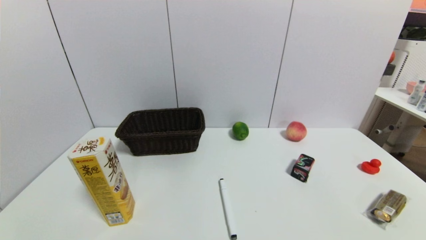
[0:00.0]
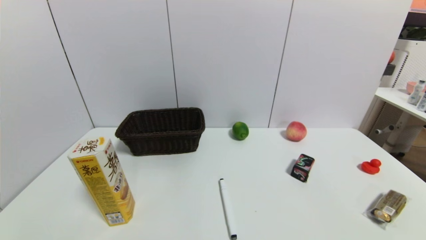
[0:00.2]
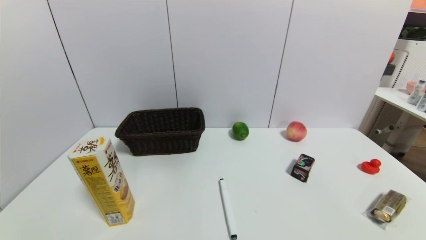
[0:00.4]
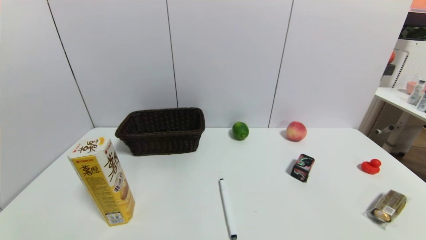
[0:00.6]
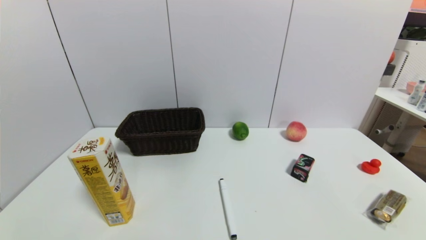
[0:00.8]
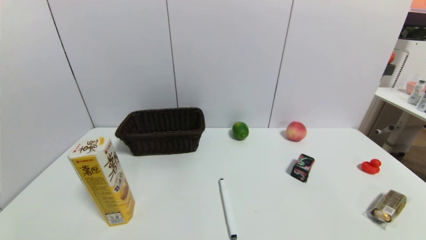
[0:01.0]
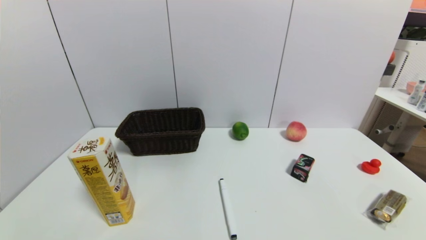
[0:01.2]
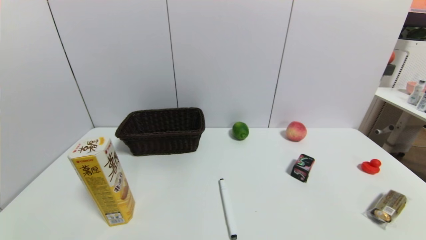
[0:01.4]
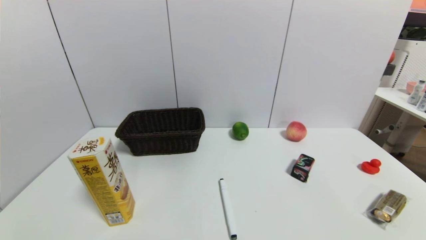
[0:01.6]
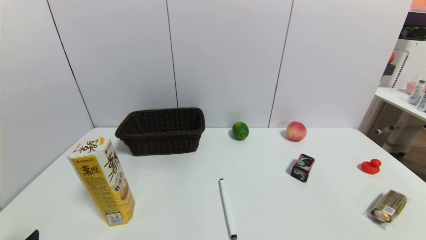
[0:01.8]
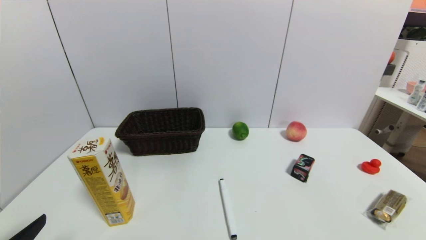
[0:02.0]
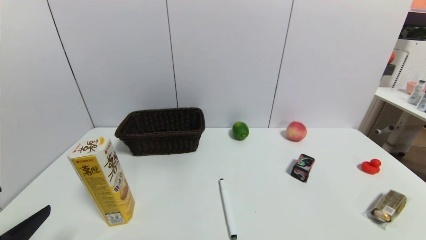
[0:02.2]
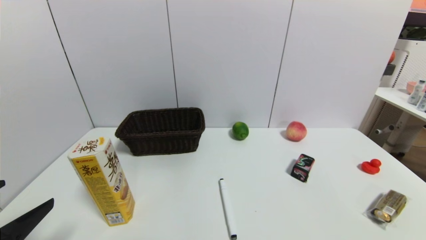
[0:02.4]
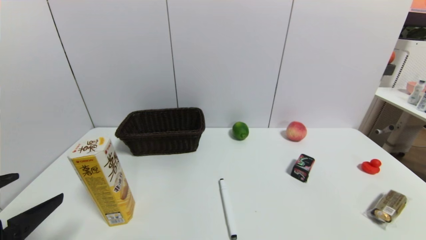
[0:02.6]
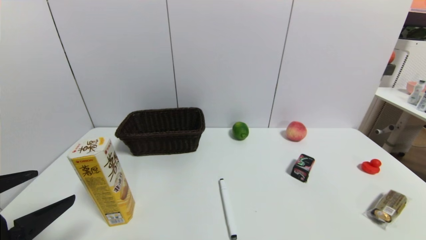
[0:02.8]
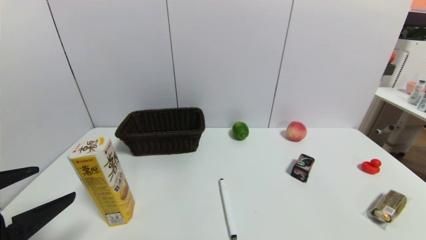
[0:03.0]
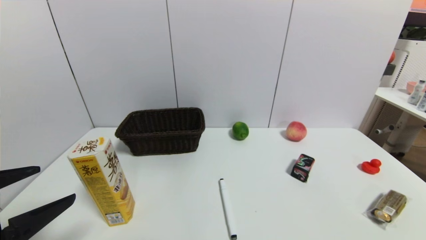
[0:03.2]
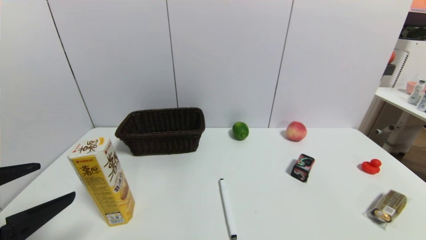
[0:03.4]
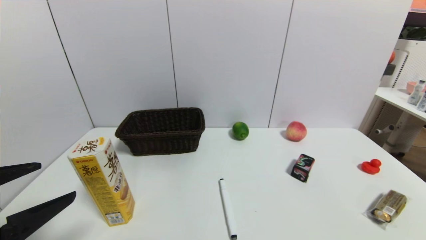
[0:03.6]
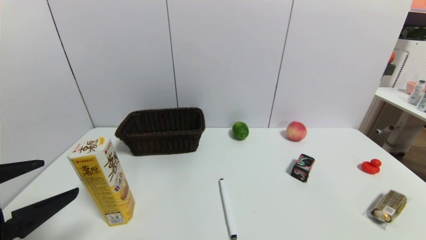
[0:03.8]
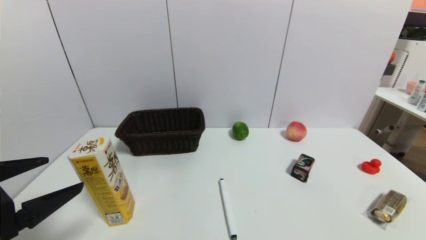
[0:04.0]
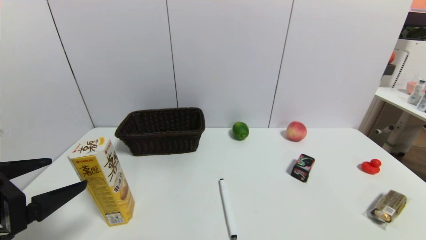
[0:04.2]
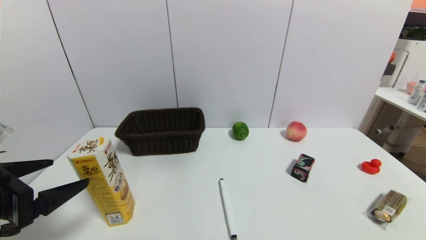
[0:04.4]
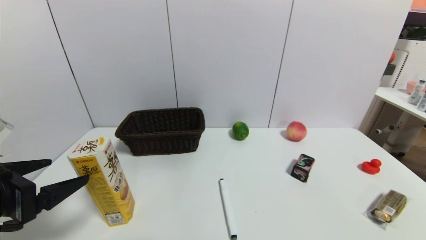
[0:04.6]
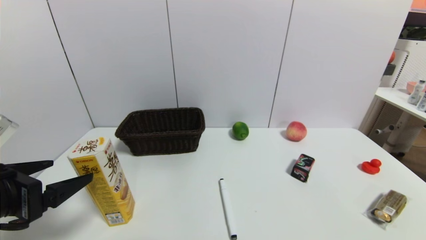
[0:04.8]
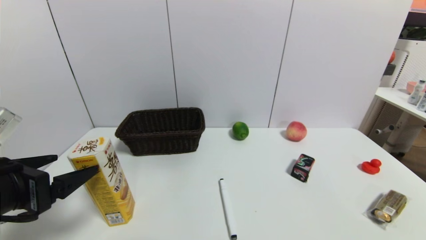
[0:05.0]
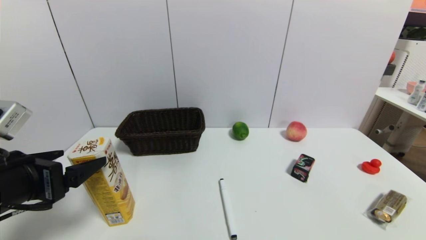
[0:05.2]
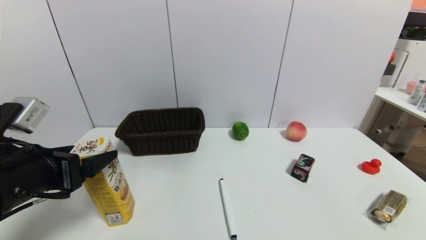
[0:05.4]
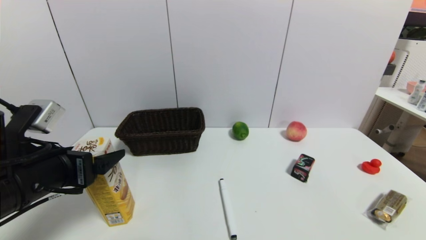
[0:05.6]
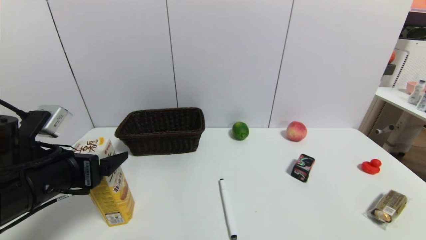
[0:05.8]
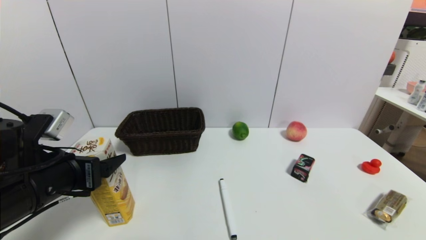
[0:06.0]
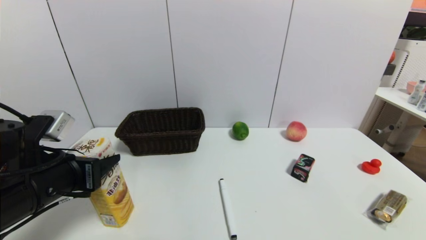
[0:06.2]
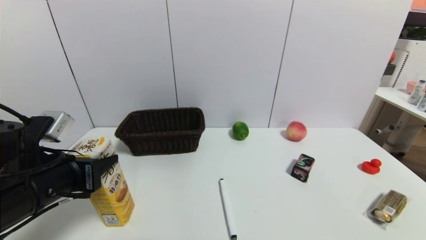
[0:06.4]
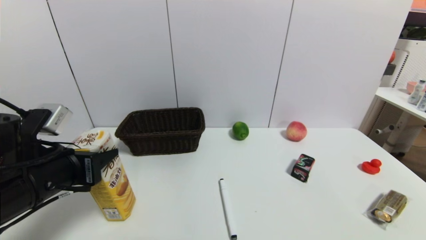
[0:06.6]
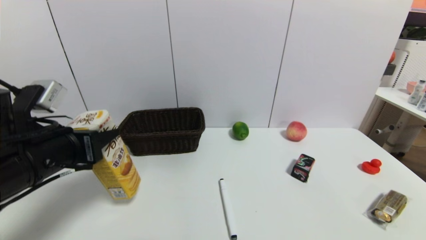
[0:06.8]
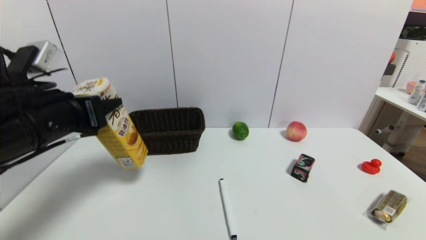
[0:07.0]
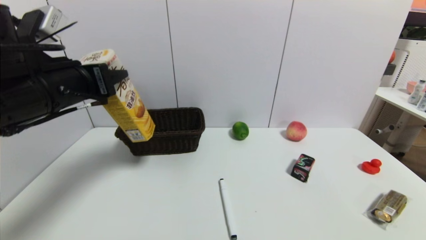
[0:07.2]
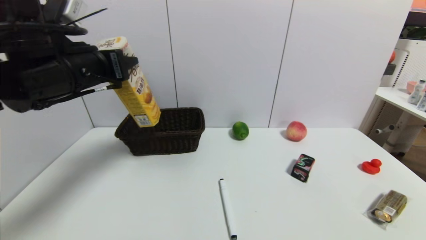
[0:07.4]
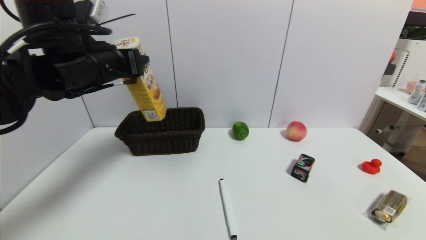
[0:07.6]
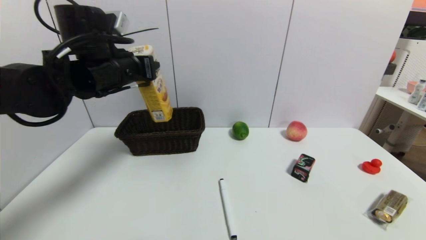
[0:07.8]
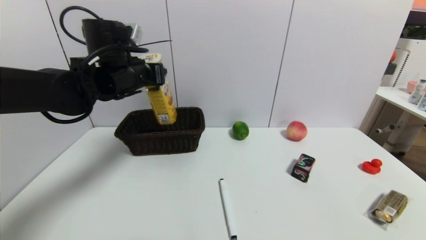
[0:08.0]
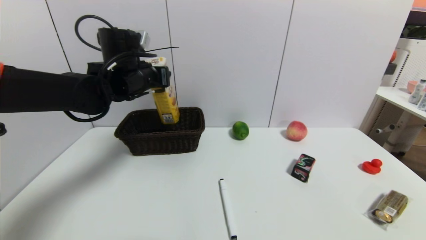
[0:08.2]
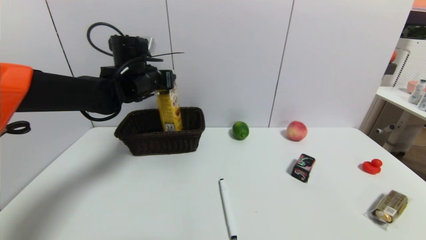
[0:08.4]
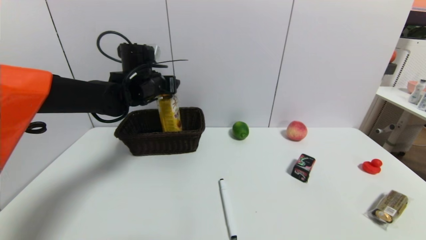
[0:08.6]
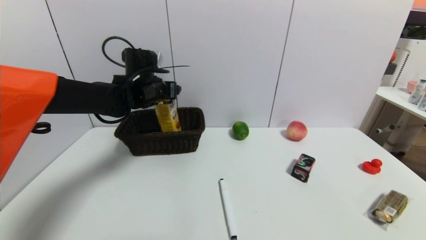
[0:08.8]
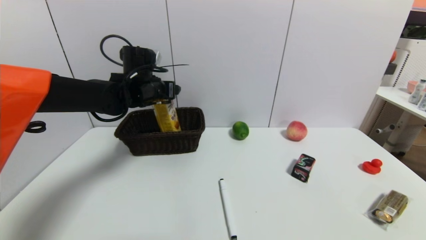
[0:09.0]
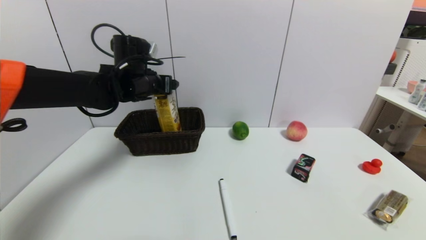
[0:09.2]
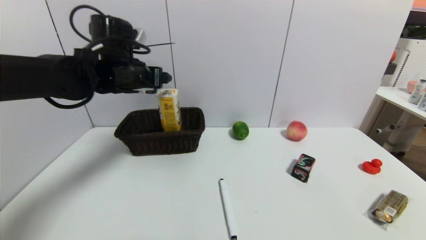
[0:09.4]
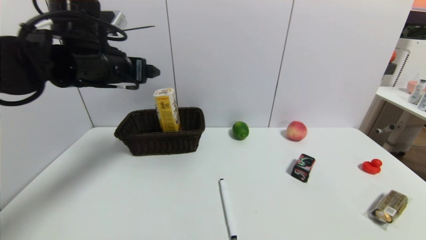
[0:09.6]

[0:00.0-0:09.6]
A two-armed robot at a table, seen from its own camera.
Task of the whole recording: use a gripper to pick the target object and place on the brown basket.
Step, 0:00.0 to 0:06.4: Grasp the potato chips with the left gripper.
Step, 0:06.6 to 0:09.4: Place the potato chips into the basket with the left gripper.
0:01.6 to 0:03.2: The left gripper shifts about 15 cm upward and forward.
0:03.2 to 0:04.8: The grippers make only small movements.
0:04.8 to 0:06.4: The left gripper moves forward, roughly 5 cm, and closes up.
0:06.4 to 0:08.0: The left gripper heads forward and upward, covering roughly 20 cm.
0:08.0 to 0:09.6: The left gripper is displaced backward by approximately 5 cm, and opens up.

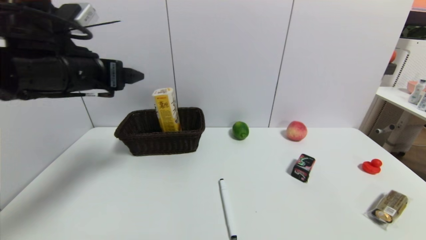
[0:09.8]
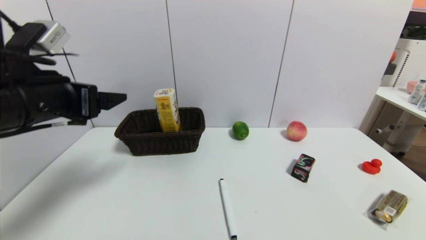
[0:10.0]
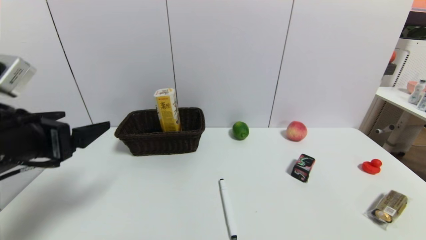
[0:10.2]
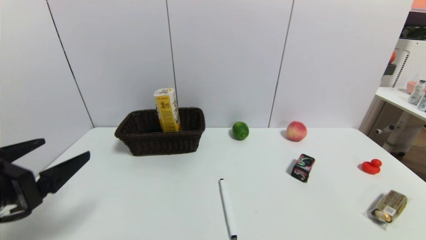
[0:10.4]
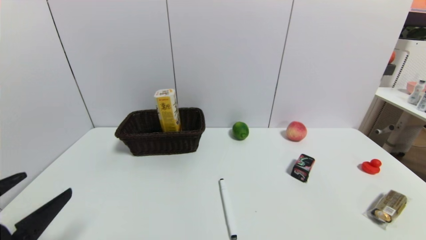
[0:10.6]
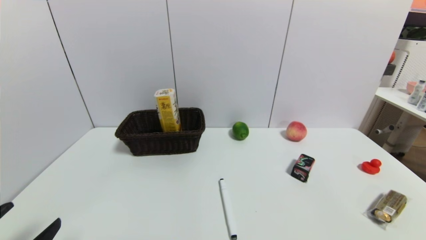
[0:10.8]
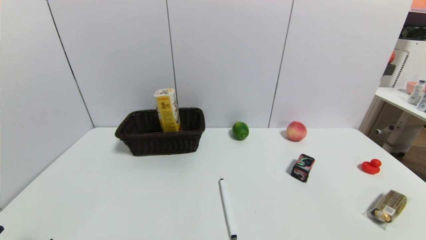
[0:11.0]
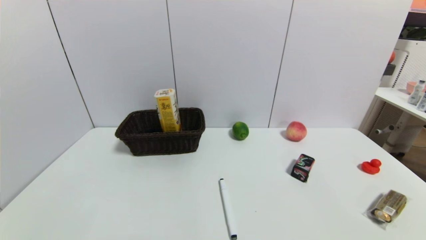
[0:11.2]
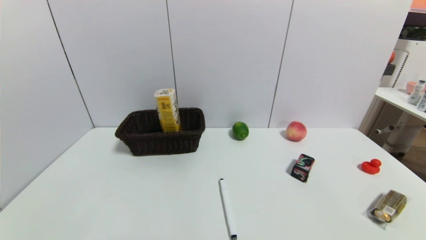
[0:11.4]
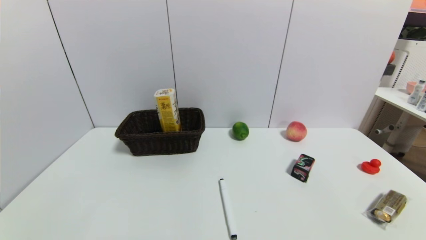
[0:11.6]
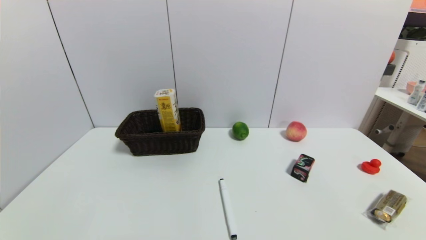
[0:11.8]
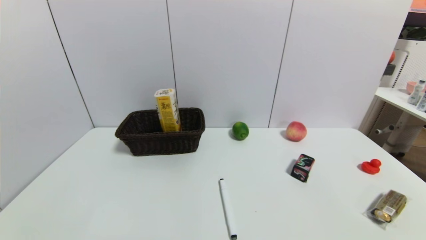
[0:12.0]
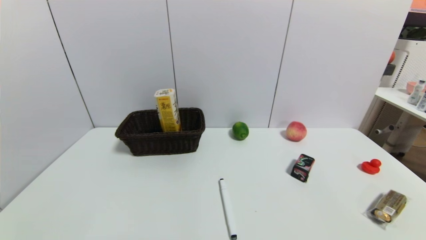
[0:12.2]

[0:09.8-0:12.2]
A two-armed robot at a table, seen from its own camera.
Task of the whole recording: use a gripper to pick the target object and place on the brown basket.
0:09.8 to 0:11.0: The left gripper heads backward and downward, covering some 30 cm.

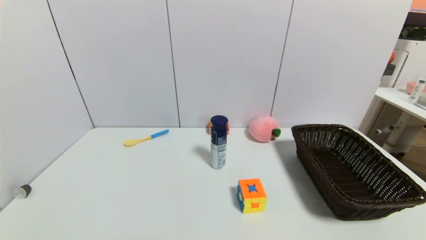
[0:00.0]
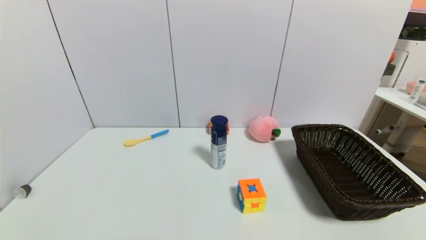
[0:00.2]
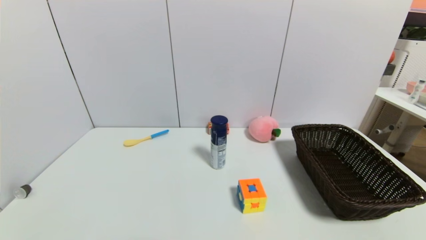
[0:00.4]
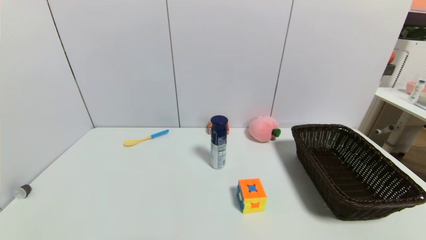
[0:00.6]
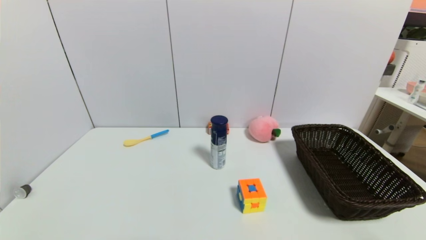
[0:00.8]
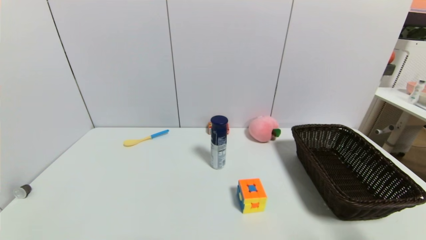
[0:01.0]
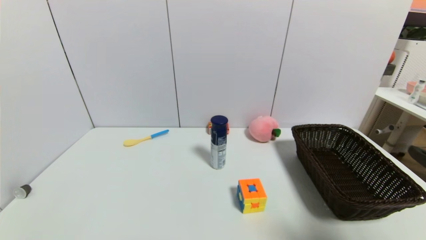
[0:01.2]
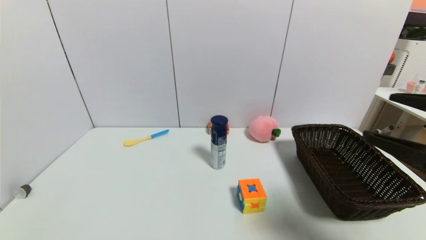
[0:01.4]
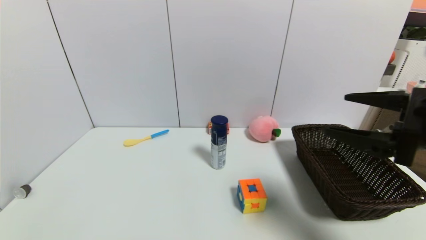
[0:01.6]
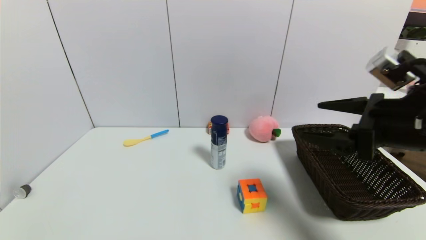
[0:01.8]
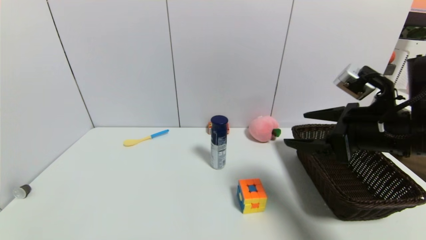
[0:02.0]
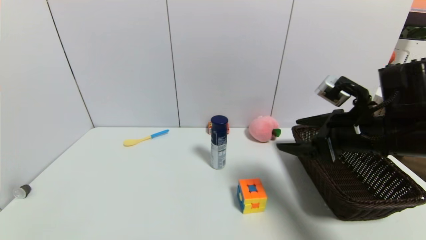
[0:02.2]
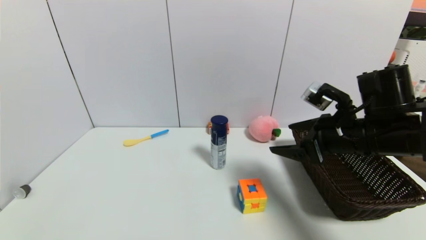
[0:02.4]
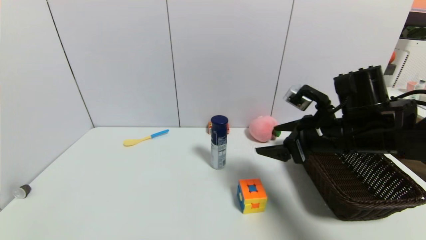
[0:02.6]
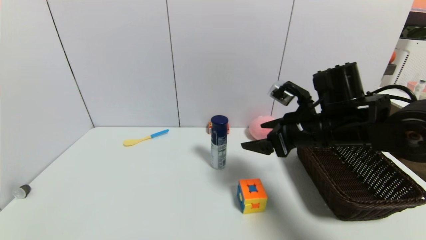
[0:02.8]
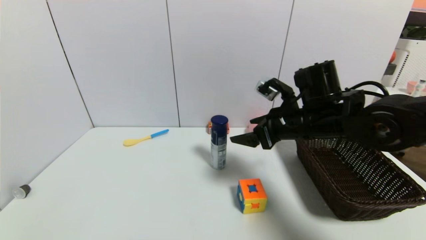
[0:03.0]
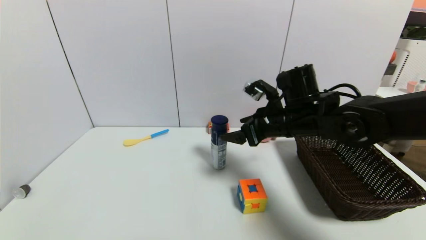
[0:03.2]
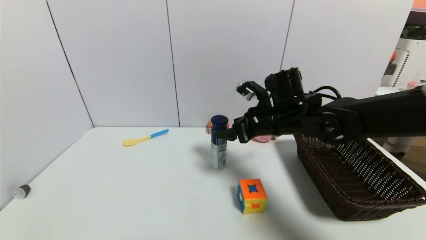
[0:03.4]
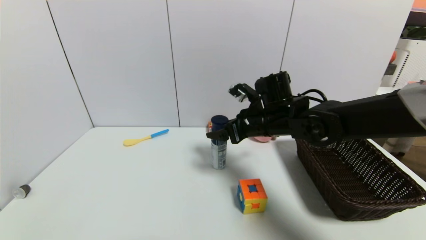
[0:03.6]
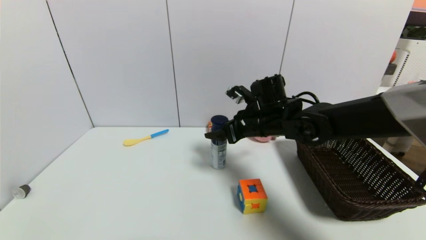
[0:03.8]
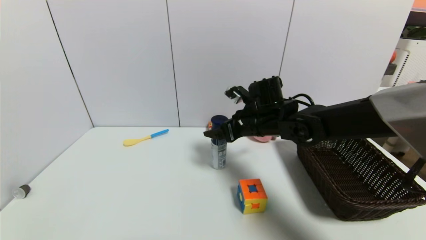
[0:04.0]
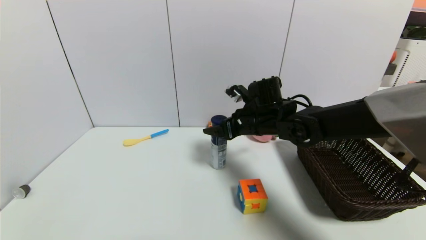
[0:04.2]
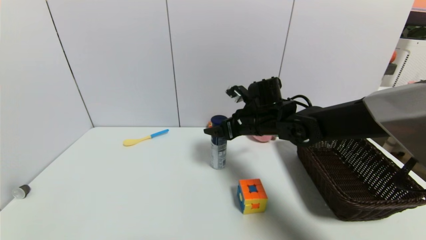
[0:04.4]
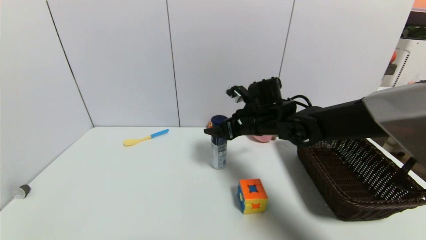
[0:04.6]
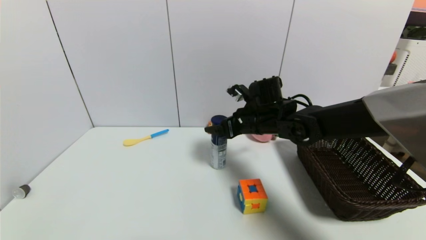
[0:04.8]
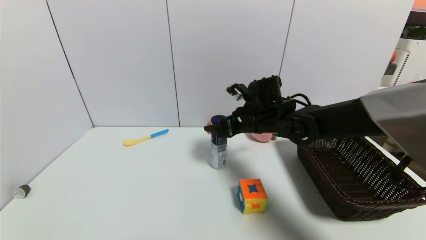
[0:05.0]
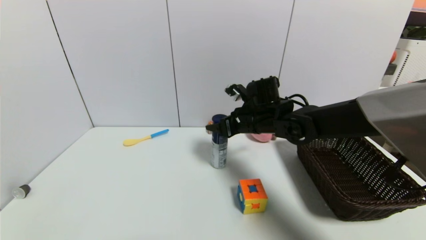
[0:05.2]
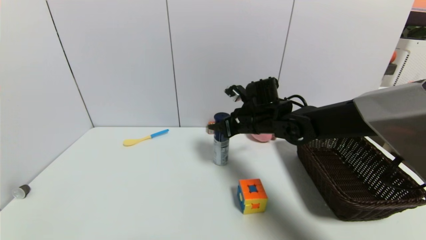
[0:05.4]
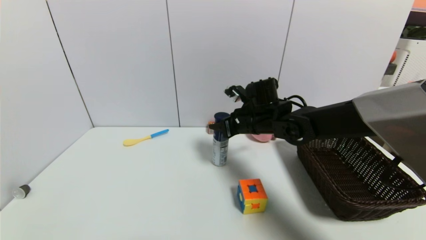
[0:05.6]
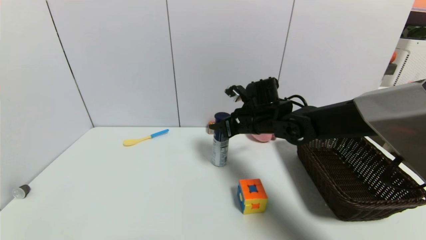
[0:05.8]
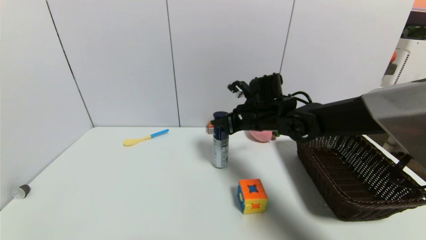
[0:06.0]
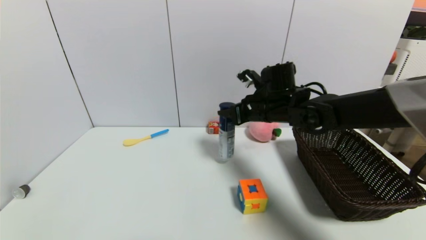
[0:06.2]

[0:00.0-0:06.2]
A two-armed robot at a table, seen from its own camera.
Task of the whole recording: use a gripper to pick the target object and place on the brown basket.
Step, 0:00.0 to 0:05.6: Grasp the yogurt with the right gripper.
0:00.0 to 0:01.6: The right gripper is displaced upward and forward by about 30 cm.
0:01.6 to 0:03.2: The right gripper moves forward, to the left and downward, about 20 cm.
0:03.2 to 0:04.6: The right gripper changes place by some 5 cm.
0:04.6 to 0:06.2: The right gripper closes its fingers.
